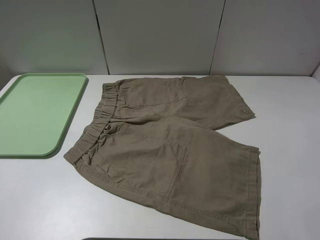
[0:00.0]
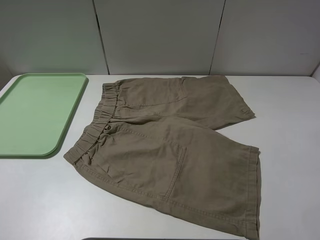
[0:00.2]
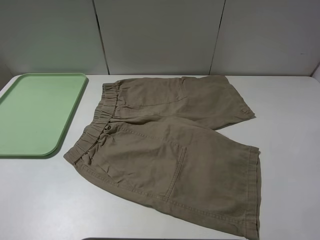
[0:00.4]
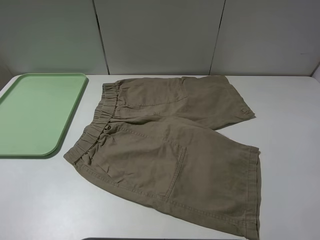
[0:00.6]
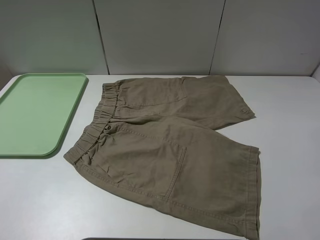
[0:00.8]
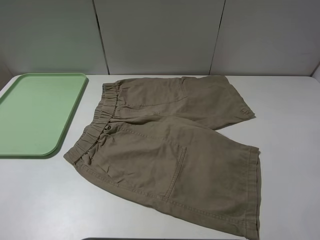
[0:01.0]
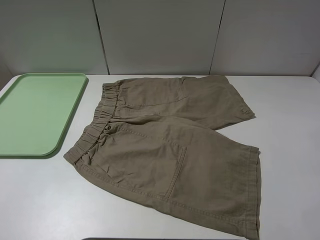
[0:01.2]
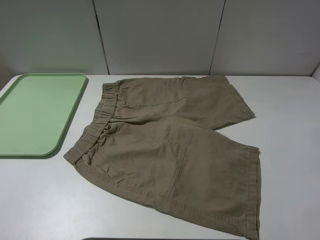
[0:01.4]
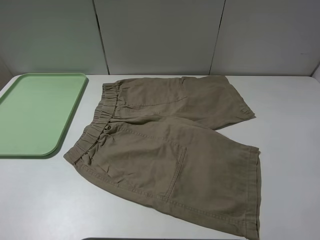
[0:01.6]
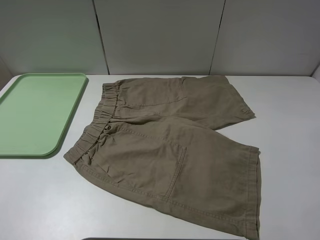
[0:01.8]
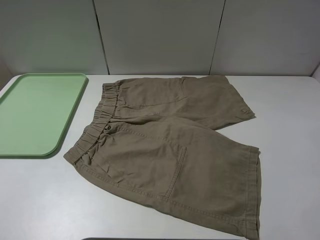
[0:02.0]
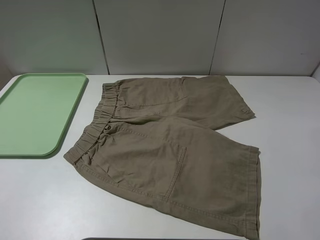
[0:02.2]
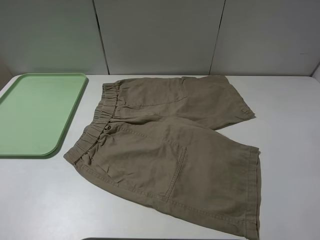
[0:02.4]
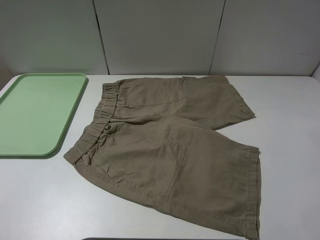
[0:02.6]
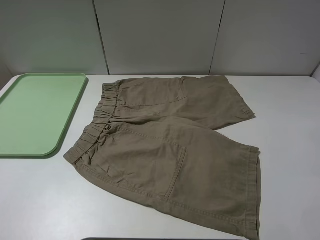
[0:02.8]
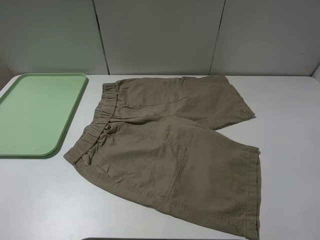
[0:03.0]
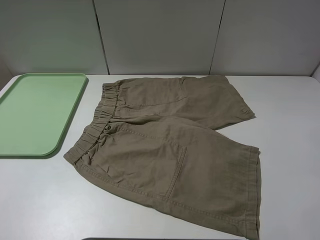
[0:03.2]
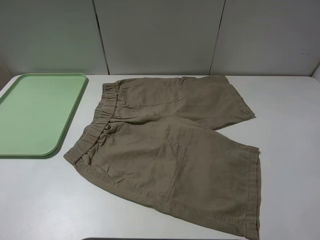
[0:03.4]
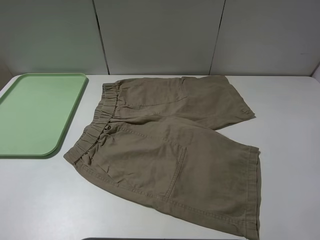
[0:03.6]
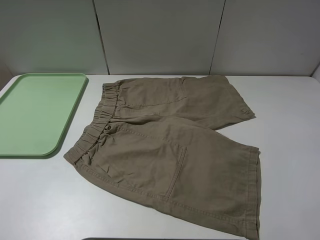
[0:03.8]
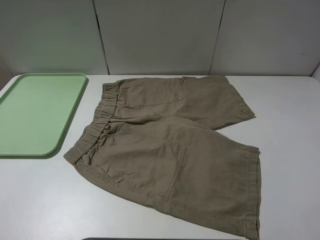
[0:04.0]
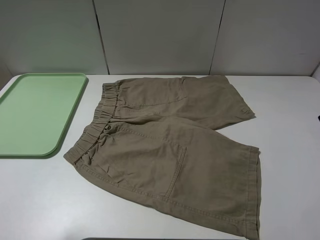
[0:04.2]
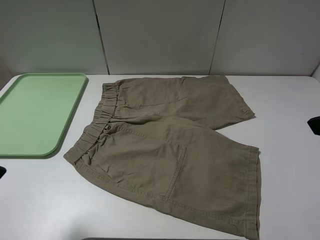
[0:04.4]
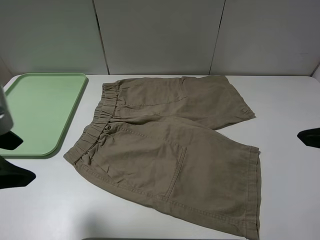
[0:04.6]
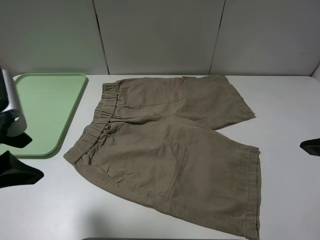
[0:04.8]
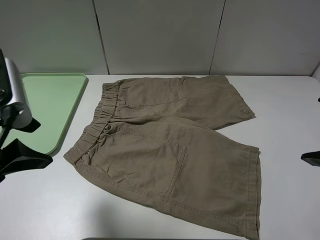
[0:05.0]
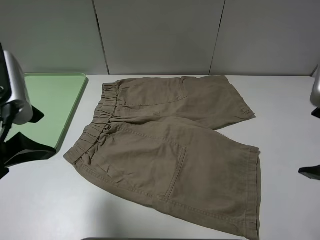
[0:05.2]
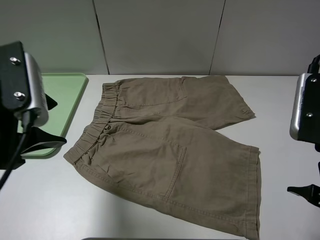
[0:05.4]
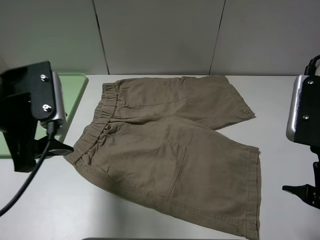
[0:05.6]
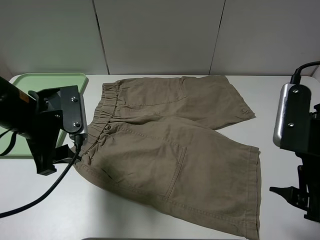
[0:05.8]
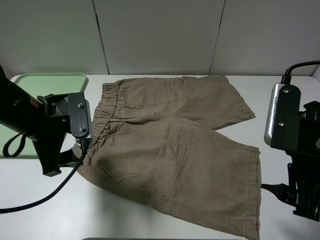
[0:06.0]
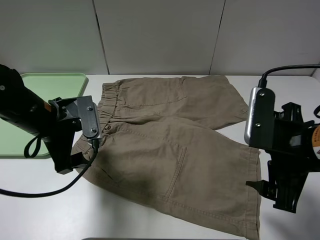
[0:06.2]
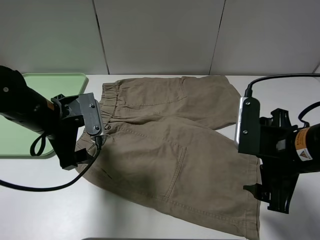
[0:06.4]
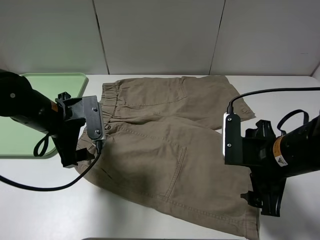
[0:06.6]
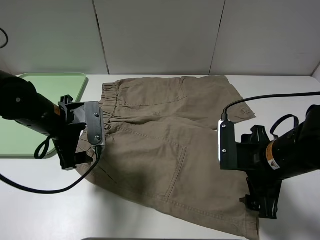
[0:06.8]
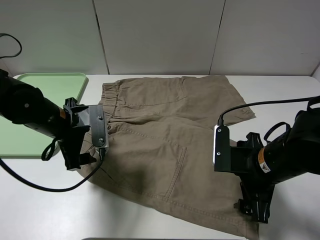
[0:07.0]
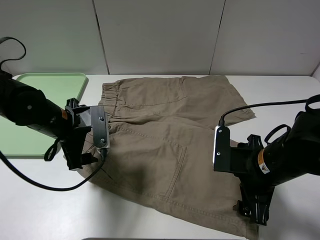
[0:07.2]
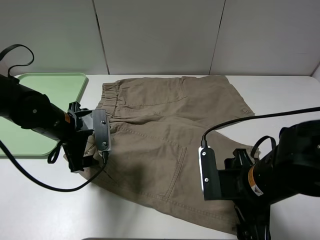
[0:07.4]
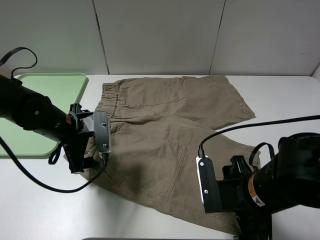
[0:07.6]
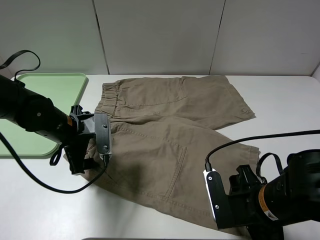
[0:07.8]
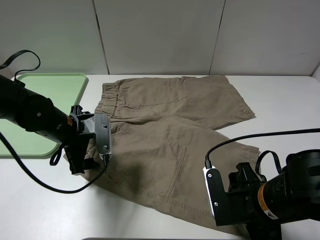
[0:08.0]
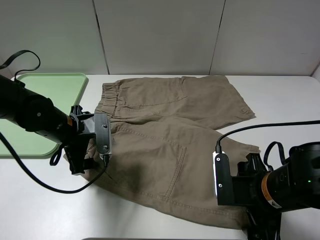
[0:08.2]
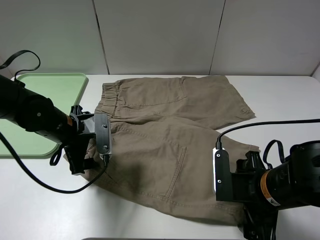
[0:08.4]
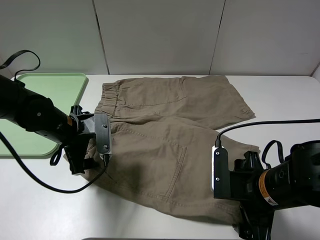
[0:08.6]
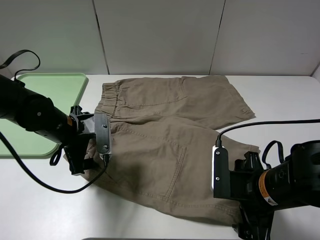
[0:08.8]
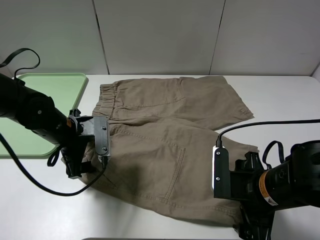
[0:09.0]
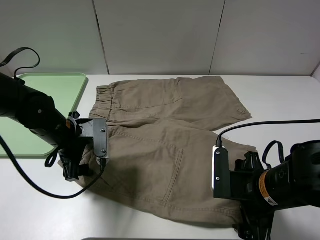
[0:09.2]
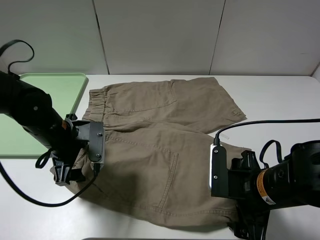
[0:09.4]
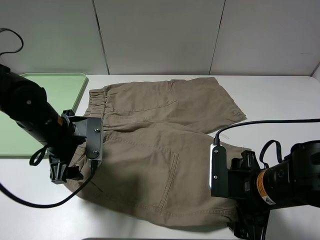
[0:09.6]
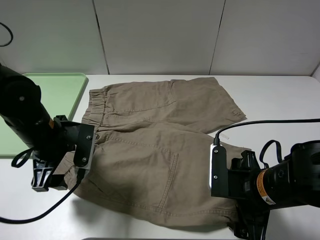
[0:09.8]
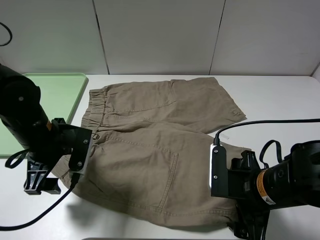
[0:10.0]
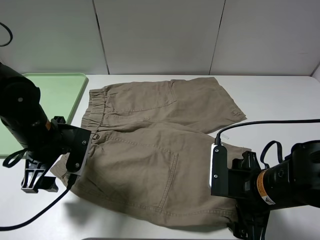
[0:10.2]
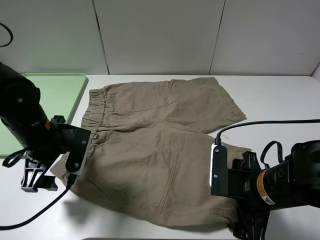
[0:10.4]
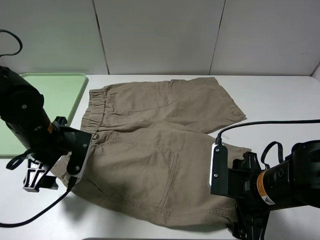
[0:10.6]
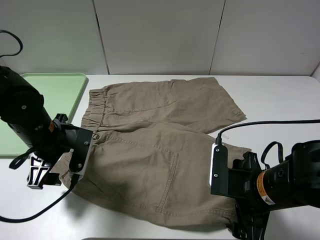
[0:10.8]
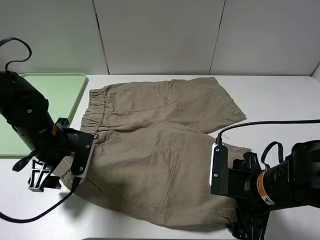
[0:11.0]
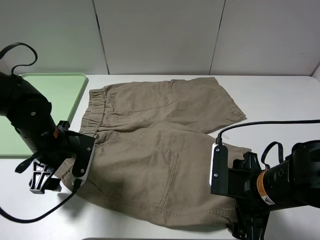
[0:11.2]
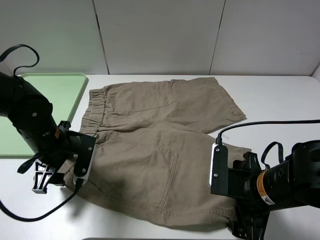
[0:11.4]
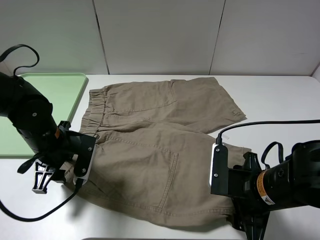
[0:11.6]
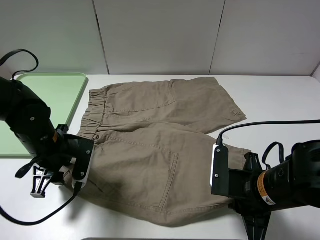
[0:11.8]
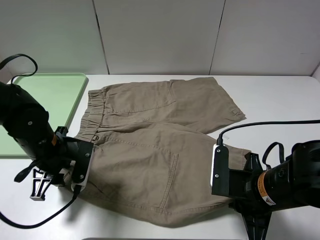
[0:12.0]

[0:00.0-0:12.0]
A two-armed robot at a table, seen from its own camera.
Task of the whole recording: fold the khaki jeans in half with two grippers, then fold them in half again, and use the left claw to place the folded fold khaki jeans on the tray.
0:00.0 to 0:03.0: Neither gripper changes place.
0:03.0 to 0:04.4: The left gripper shifts about 10 cm forward and to the right.
0:04.4 to 0:06.0: The left gripper goes roughly 20 cm forward, downward and to the right, while the right gripper is displaced downward by roughly 10 cm.
0:06.0 to 0:07.6: The right gripper shifts approximately 10 cm downward and to the left; the left gripper heads downward, covering approximately 5 cm.
0:07.6 to 0:09.0: There are only small adjustments of the grippers.
0:10.4 to 0:12.0: The right gripper closes up. Meanwhile the left gripper closes.

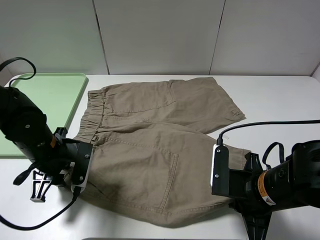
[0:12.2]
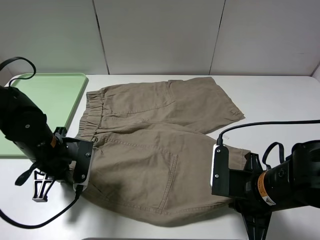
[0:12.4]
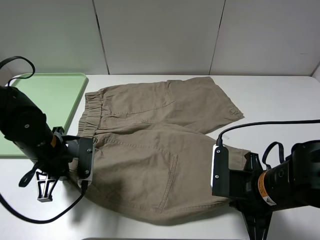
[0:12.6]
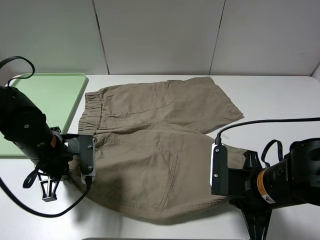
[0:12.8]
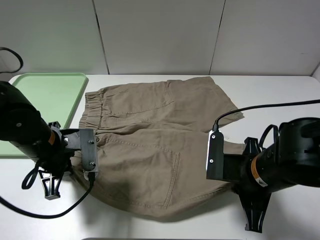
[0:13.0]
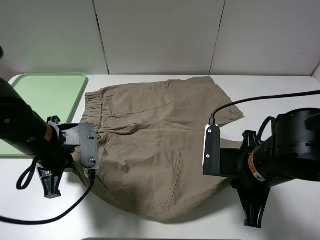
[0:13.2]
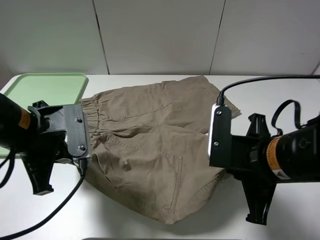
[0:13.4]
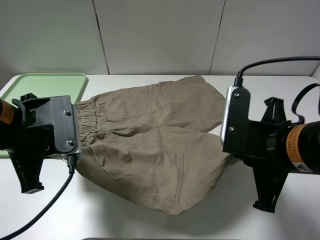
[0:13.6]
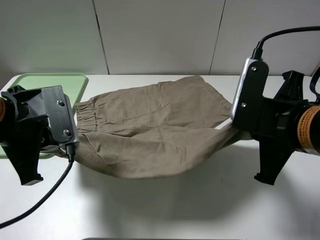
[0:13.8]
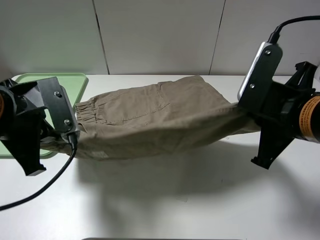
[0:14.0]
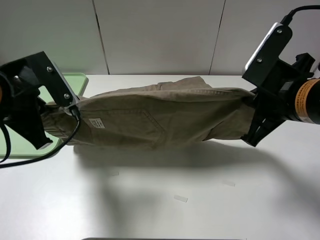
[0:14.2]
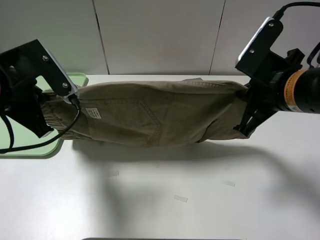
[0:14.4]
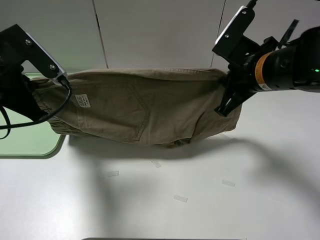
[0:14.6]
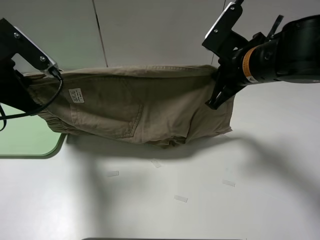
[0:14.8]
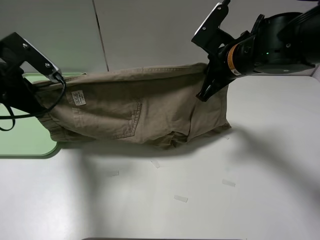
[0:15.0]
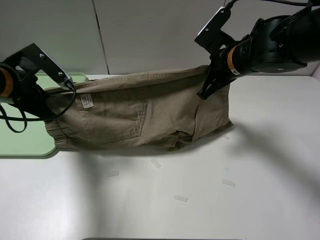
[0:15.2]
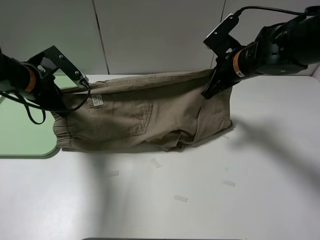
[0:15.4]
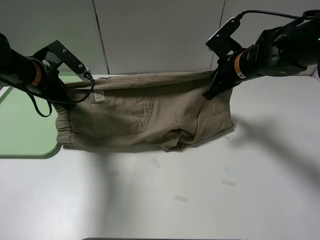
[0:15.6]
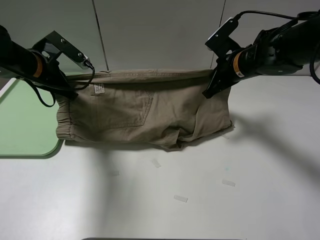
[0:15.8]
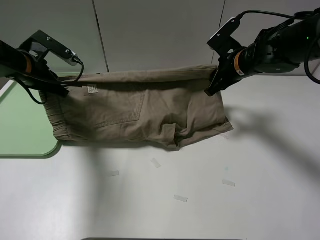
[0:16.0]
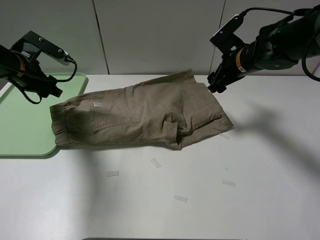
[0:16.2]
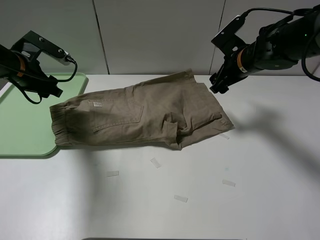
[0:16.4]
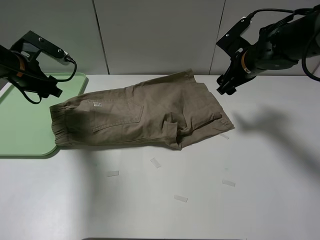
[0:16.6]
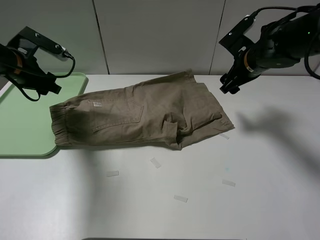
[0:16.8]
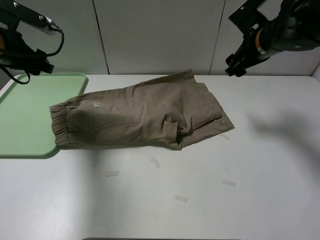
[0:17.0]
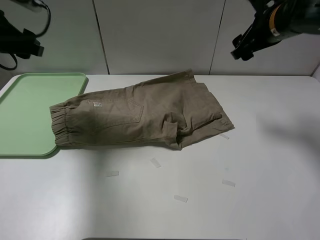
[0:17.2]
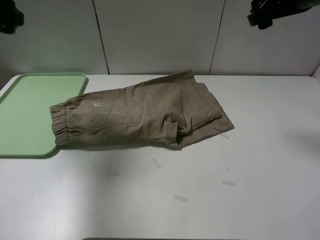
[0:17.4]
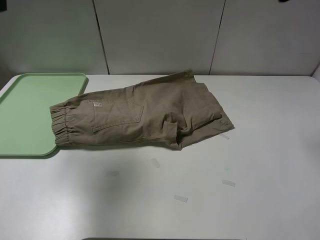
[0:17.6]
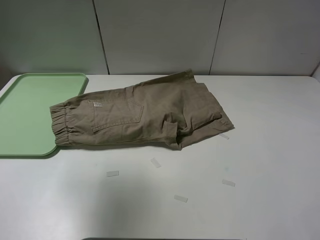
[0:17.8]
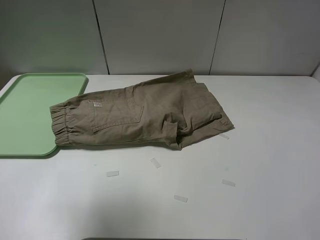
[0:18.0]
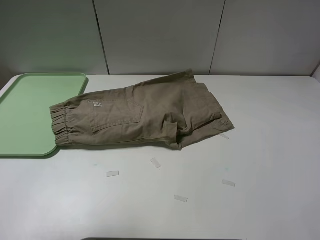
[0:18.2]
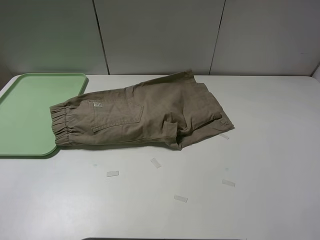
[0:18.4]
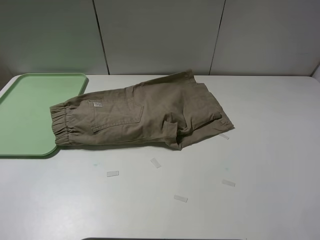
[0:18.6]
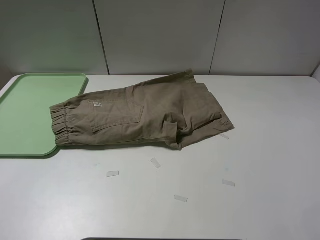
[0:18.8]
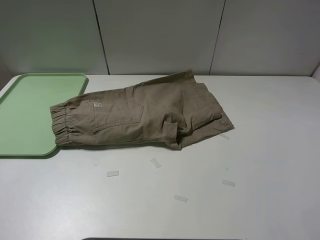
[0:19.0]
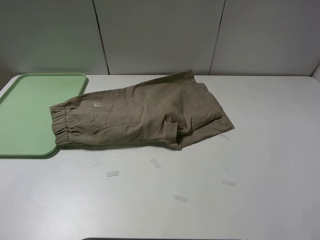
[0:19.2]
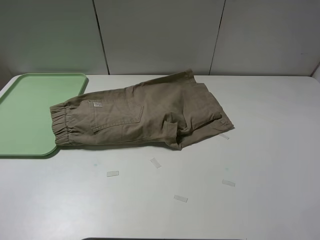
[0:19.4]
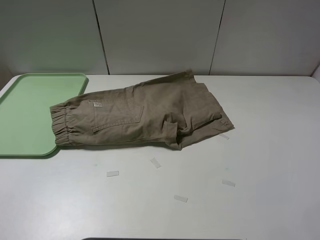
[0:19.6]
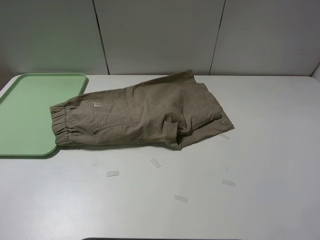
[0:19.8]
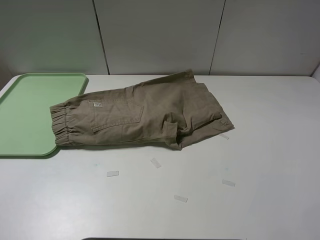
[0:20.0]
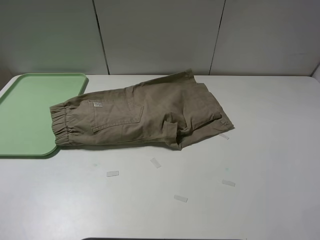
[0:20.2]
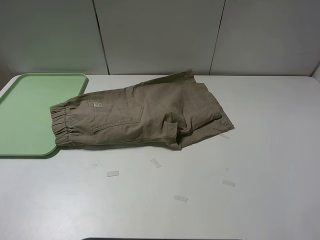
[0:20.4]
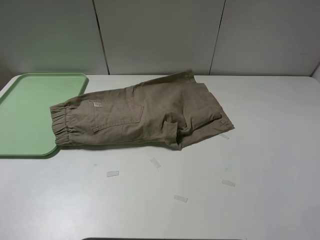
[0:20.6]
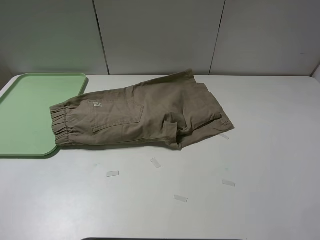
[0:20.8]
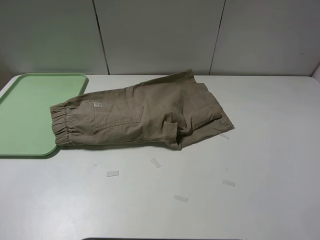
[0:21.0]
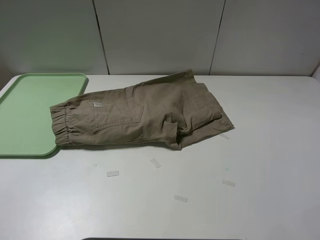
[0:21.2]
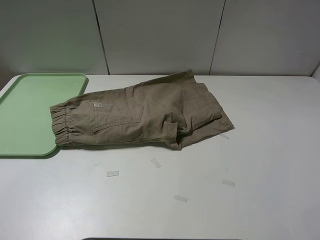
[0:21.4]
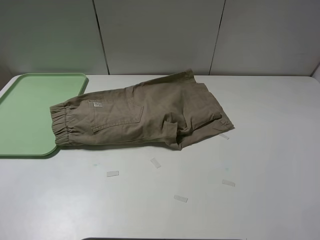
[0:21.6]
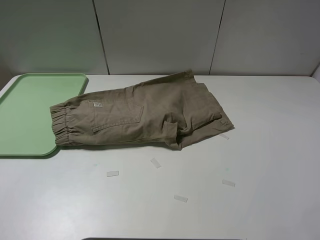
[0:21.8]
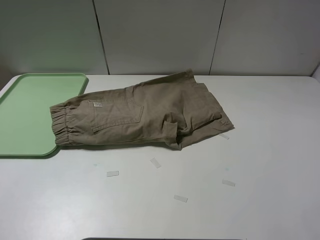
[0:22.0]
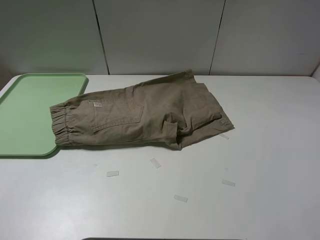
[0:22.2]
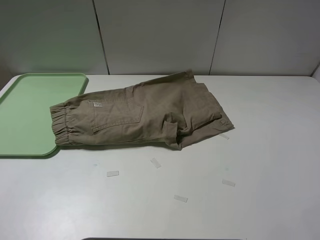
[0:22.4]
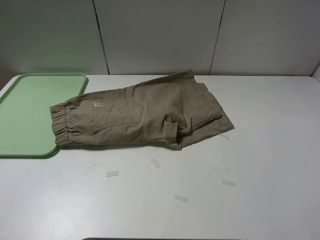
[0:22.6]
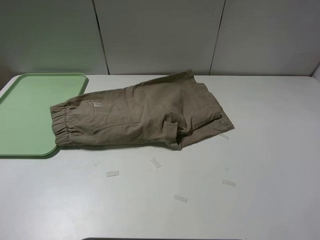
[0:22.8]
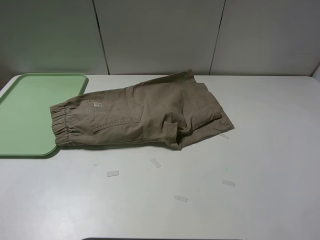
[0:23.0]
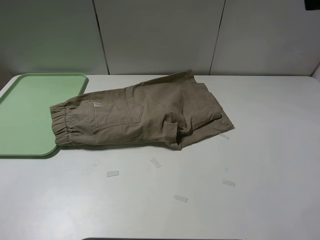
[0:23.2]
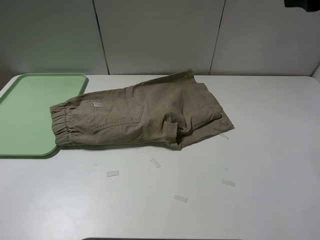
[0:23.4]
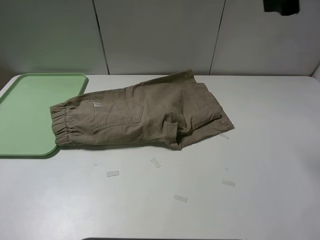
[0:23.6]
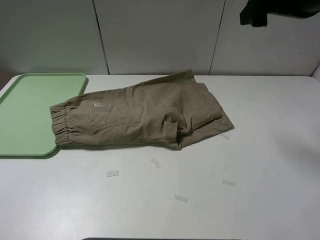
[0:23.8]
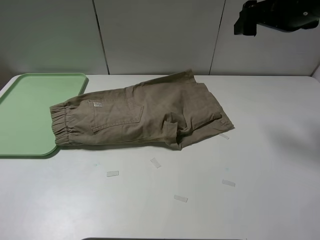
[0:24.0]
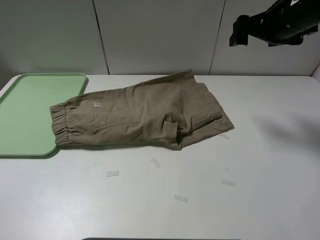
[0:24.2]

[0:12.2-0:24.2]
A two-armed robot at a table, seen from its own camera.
Task of the whole recording: fold the khaki jeans in half with two grippers, then fold them in half again, and use the left claw to place the folded fold khaki jeans on the tray.
Step, 0:12.8 to 0:16.0: Fold the khaki trousers upwards with the left gripper.
0:12.2 to 0:13.8: Both grippers move upward, approximately 10 cm. The left gripper closes.
0:13.8 to 0:15.2: The left gripper heads forward and to the left, covering roughly 10 cm, while the right gripper goes some 20 cm forward.
0:15.2 to 0:16.6: The left gripper heads forward, covering about 10 cm, and opens its fingers. The right gripper shifts by about 5 cm, and opens.
0:16.6 to 0:18.2: The right gripper moves upward and backward, some 40 cm. The left gripper goes roughly 35 cm backward and upward.
0:18.2 to 0:19.8: The left gripper is displaced downward and backward by some 15 cm.
0:22.6 to 0:24.2: The right gripper is displaced forward and downward by roughly 30 cm.
